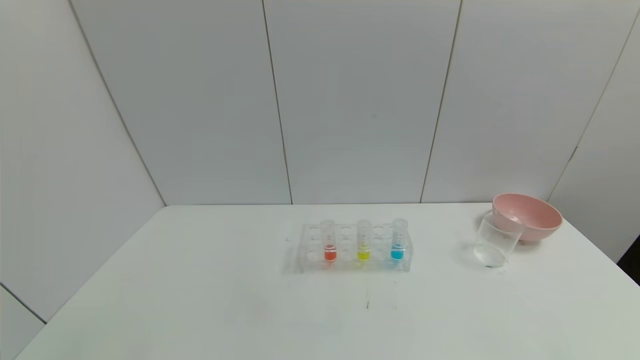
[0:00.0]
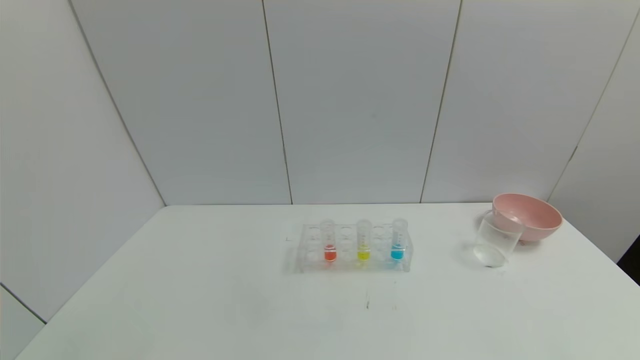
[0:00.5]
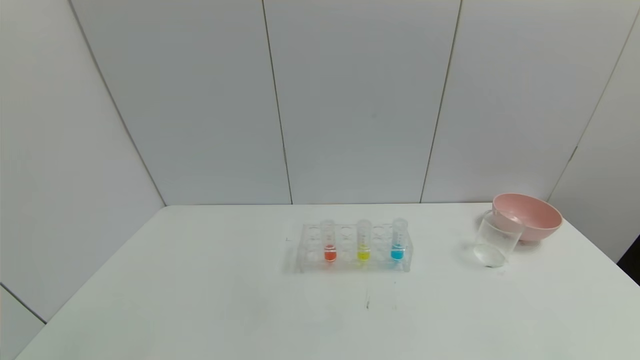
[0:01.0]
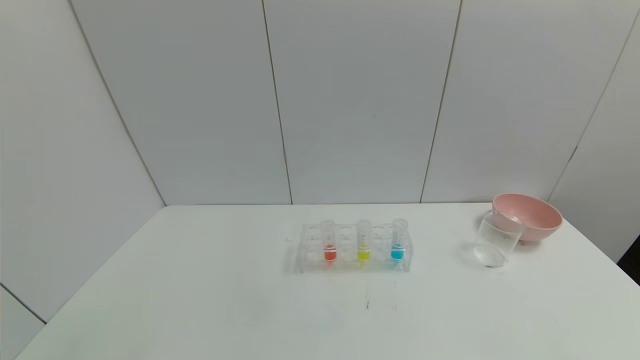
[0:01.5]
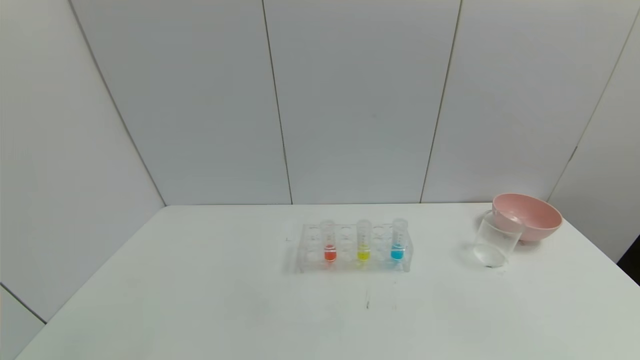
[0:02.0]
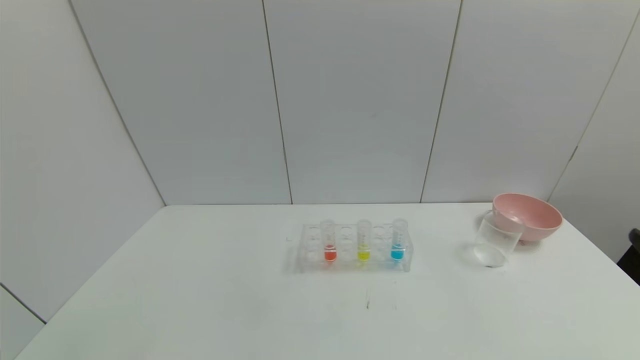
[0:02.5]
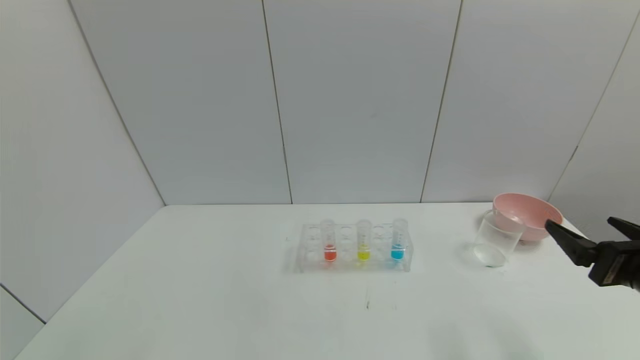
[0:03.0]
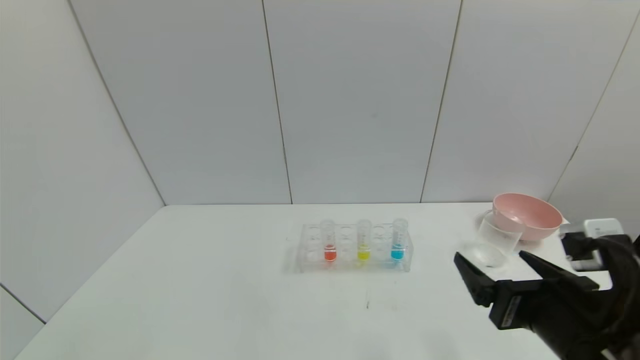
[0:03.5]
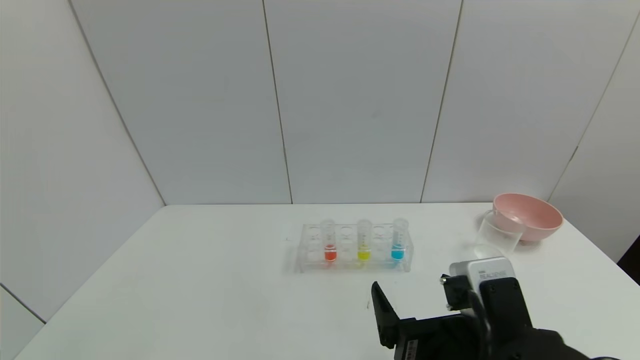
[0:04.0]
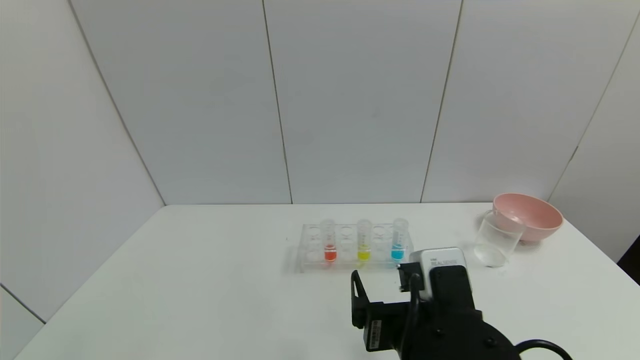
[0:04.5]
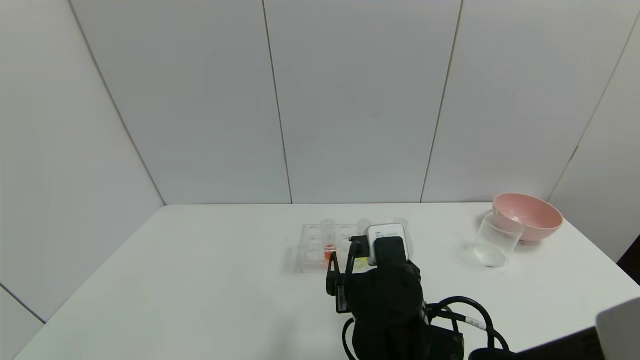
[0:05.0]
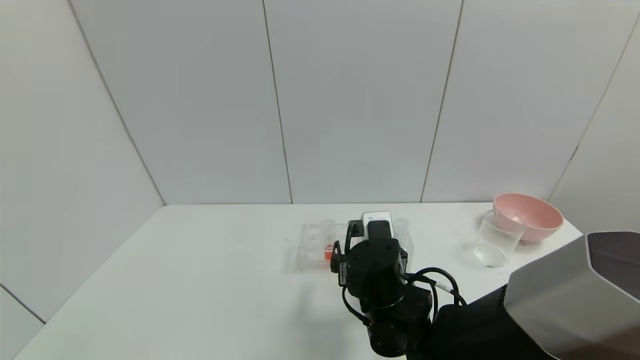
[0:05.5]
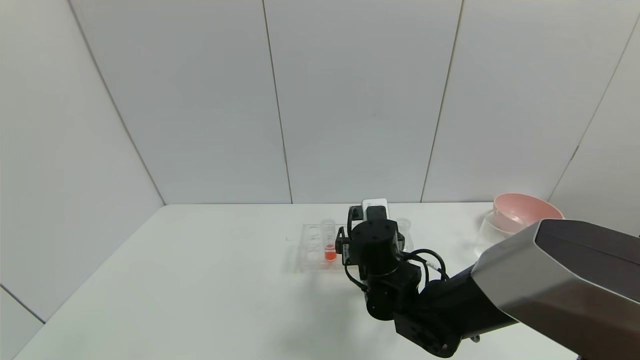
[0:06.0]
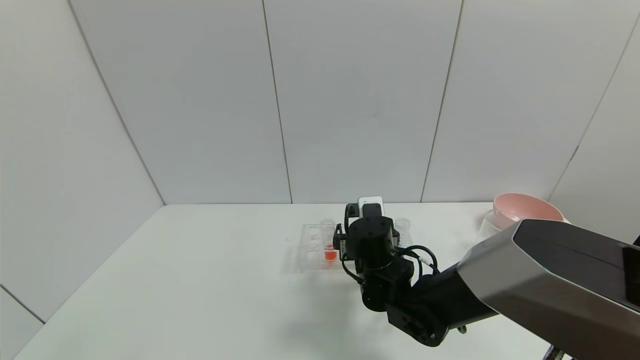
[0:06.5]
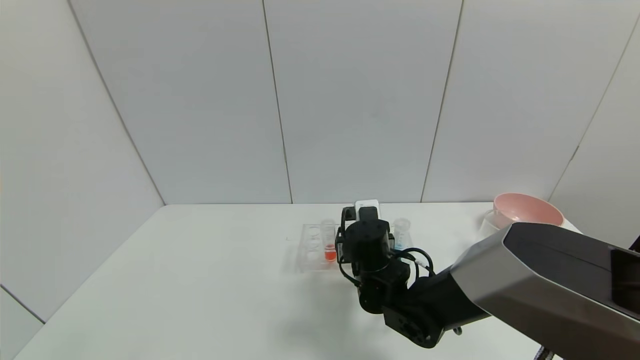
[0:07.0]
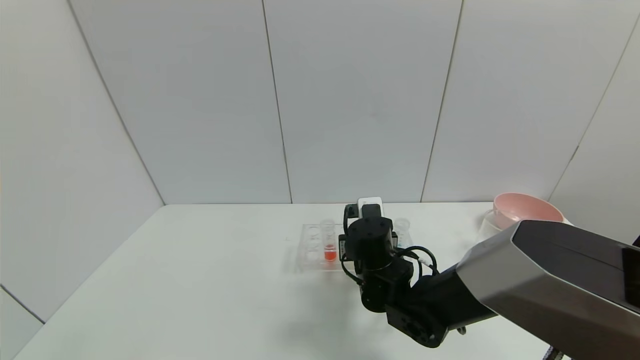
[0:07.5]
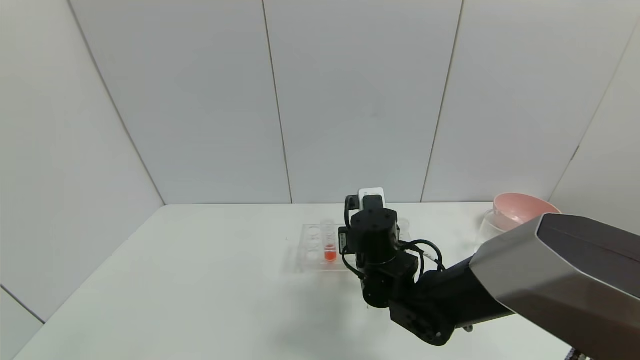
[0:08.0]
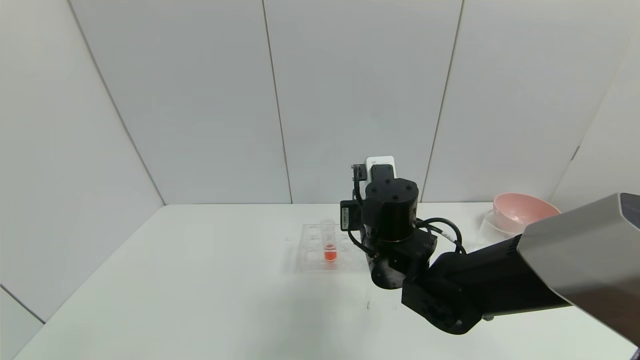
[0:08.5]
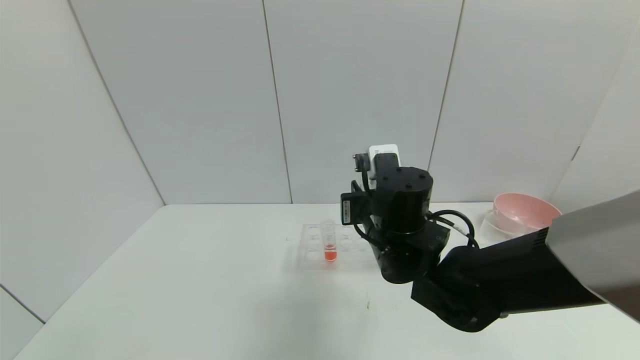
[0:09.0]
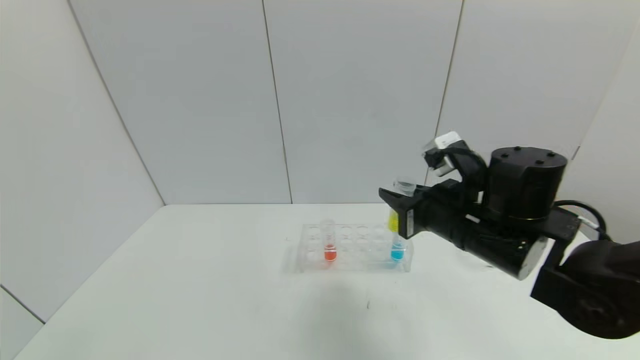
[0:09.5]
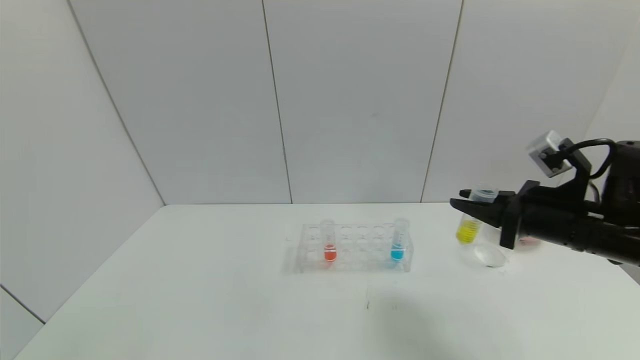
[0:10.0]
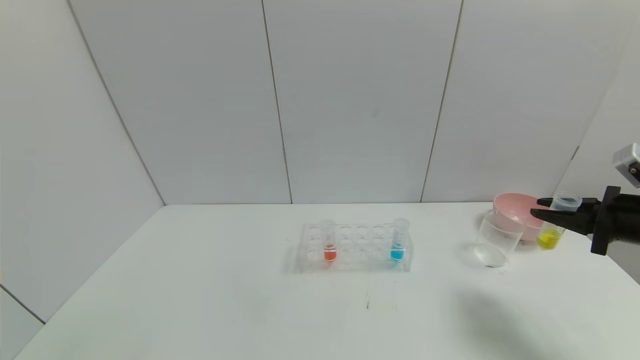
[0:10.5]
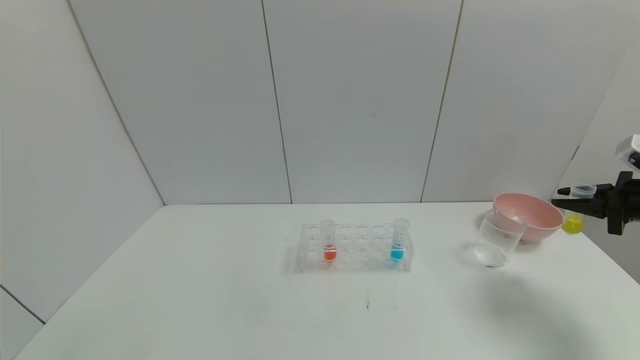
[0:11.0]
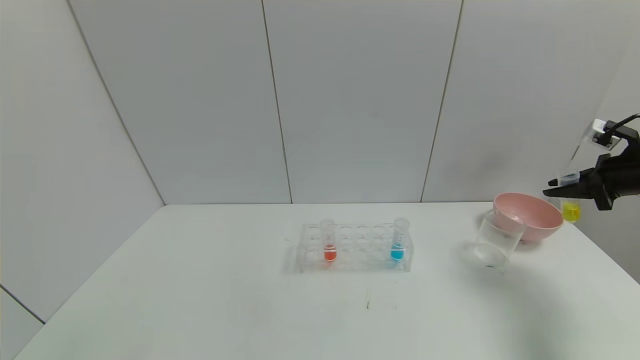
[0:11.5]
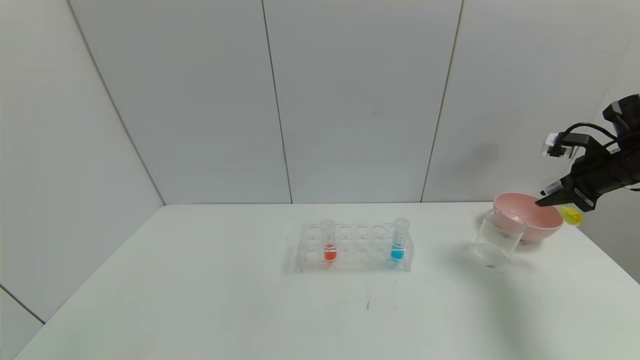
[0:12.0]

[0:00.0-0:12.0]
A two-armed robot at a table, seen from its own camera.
Task of the whole recording: pick up the test tube with yellow pigment and the test tube with blue pigment by grippers and pour them into the beaker.
Step, 0:00.0 to 0:07.5: Grasp the yellow reagent with the right gripper.
0:02.0 to 0:04.0: The right gripper goes some 30 cm to the left and forward.
0:04.0 to 0:06.0: The right gripper goes roughly 20 cm forward.
0:06.0 to 0:08.0: The right gripper closes.
0:08.0 to 0:10.0: The right gripper goes roughly 25 cm to the right and upward.
0:10.0 to 0:12.0: The right gripper moves to the right and forward, roughly 20 cm.

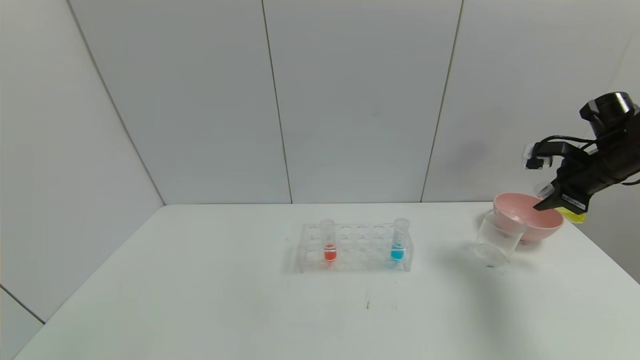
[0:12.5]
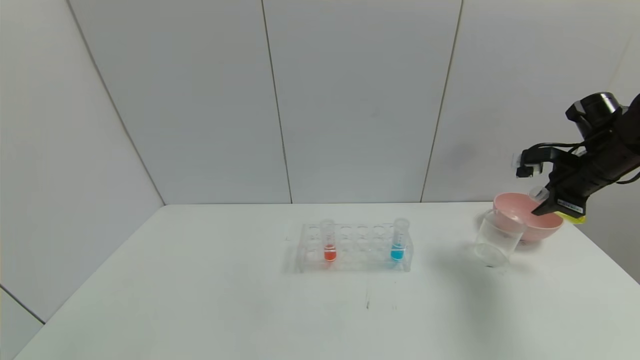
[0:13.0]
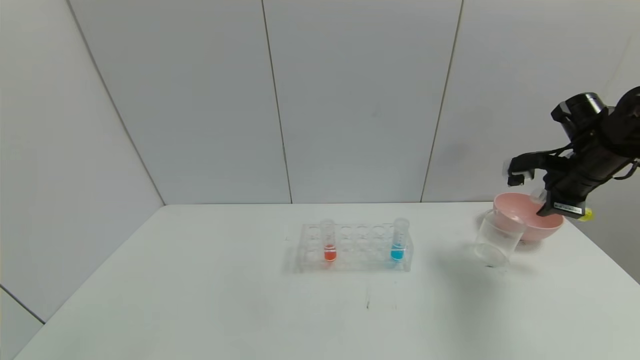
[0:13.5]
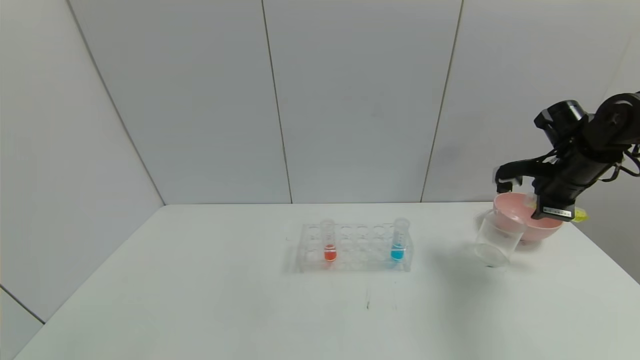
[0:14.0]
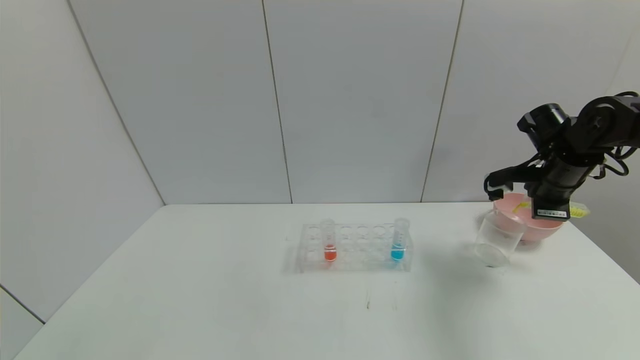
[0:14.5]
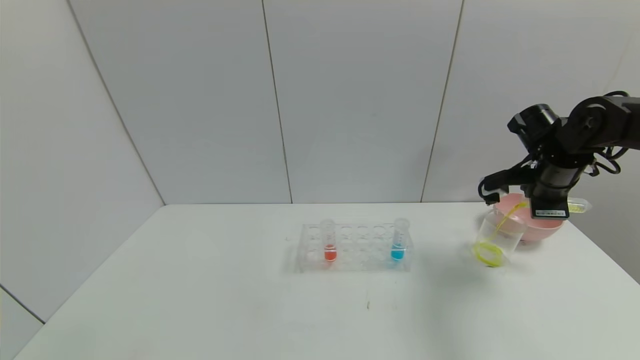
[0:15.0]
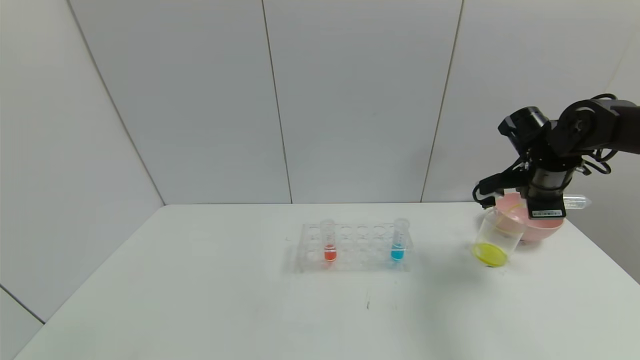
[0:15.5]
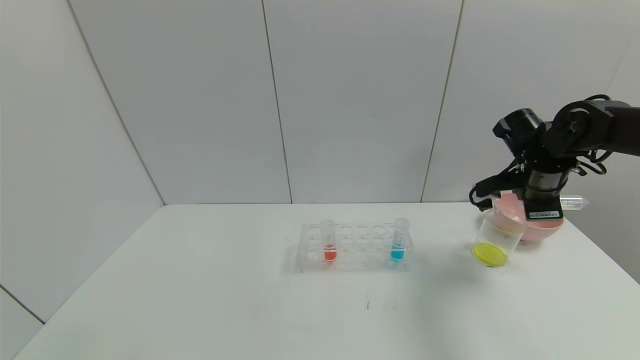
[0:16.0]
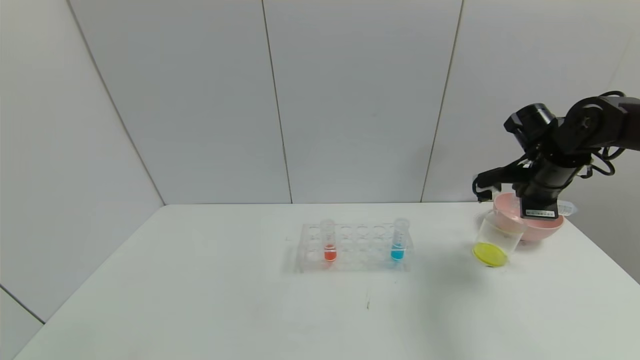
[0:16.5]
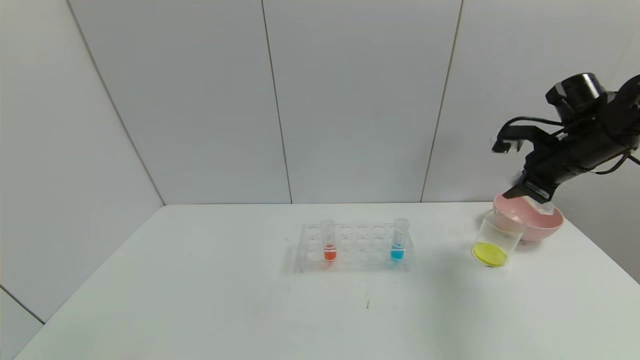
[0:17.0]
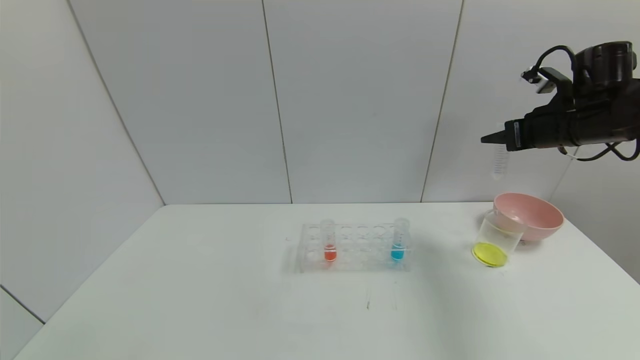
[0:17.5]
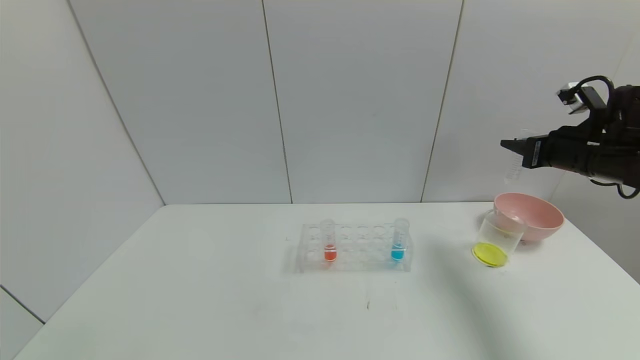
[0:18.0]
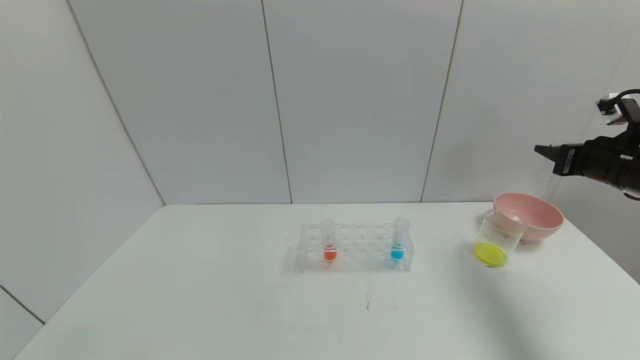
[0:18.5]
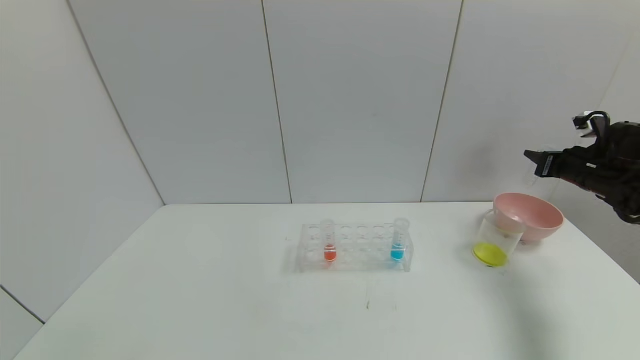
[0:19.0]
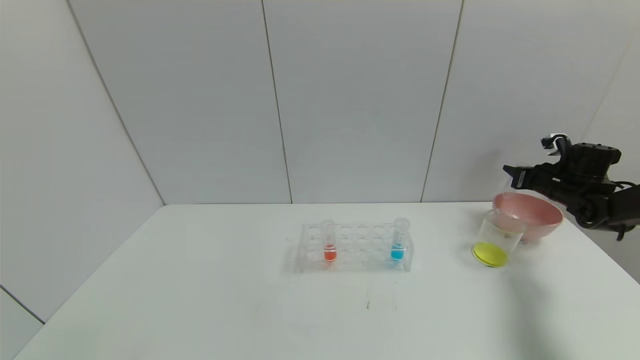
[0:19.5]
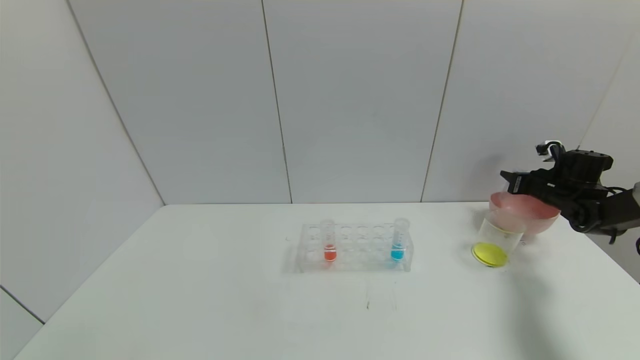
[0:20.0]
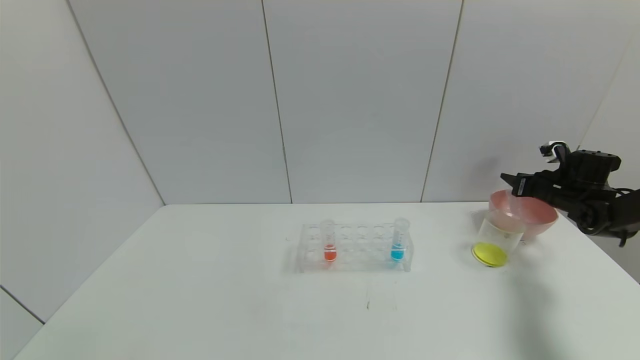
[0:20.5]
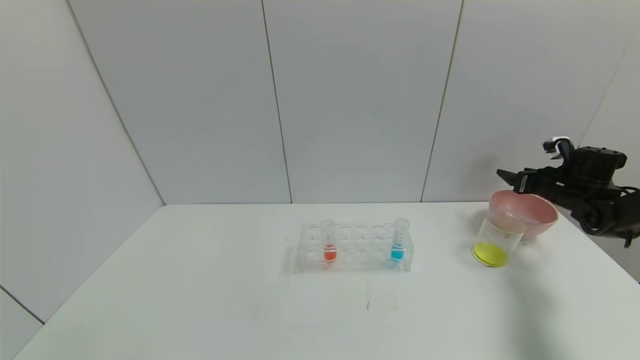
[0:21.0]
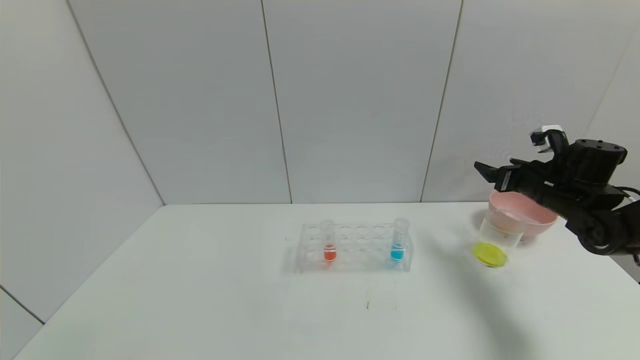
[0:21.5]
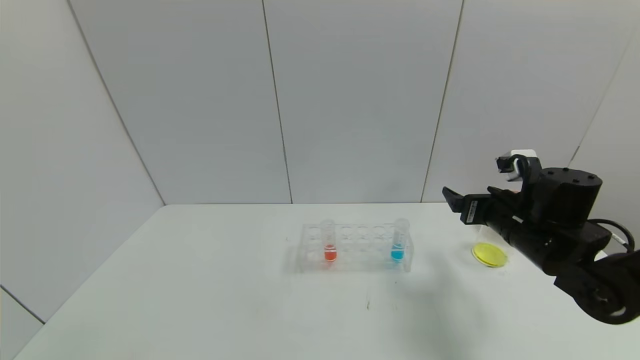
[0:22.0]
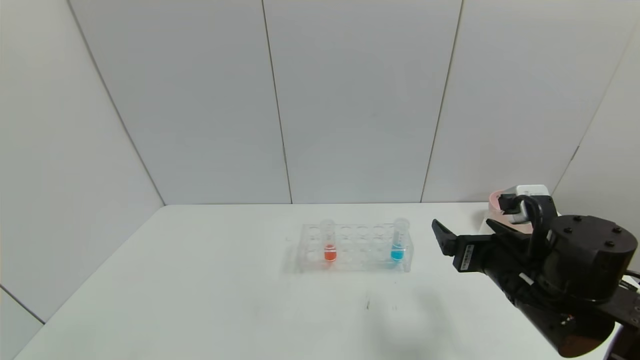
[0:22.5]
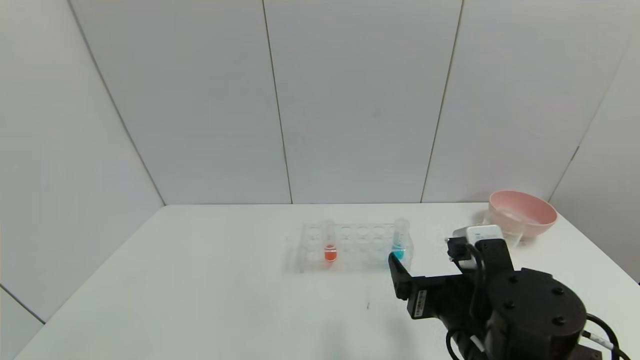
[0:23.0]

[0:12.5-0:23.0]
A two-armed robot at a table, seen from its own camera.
Task of the whole recording: pick up the test tube with yellow pigment and the test tube with blue pigment by grippers and pour them into the beaker.
Step, 0:12.5 to 0:15.5: Pour the yellow reagent into the graduated cylinder with the right gripper.
Step, 0:16.0 to 0:20.5: Place the test tube into the bowl with the right gripper.
0:12.5 to 0:14.5: The right gripper shifts some 5 cm to the left.
0:14.5 to 0:16.5: The grippers stay close to where they were, moving slightly.
0:16.5 to 0:19.0: The right gripper travels to the right by about 15 cm.
0:19.0 to 0:21.0: The right gripper heads downward, covering approximately 5 cm, and opens its fingers.
0:21.0 to 0:23.0: The right gripper goes about 40 cm to the left and backward.
